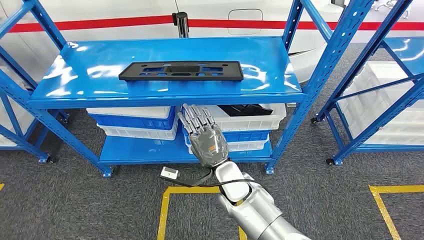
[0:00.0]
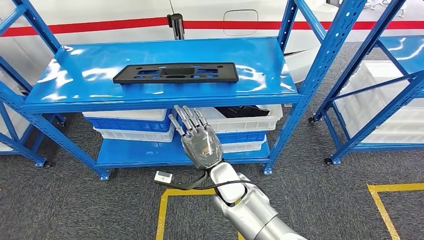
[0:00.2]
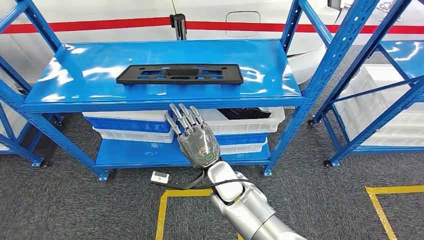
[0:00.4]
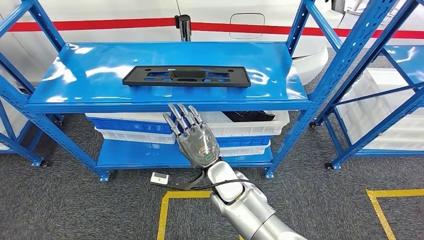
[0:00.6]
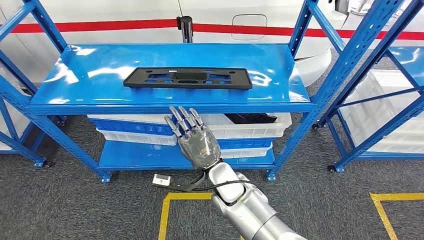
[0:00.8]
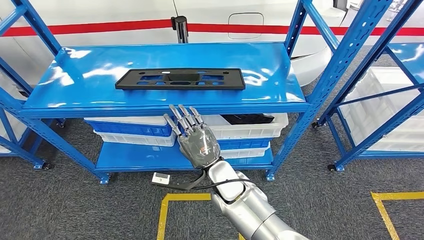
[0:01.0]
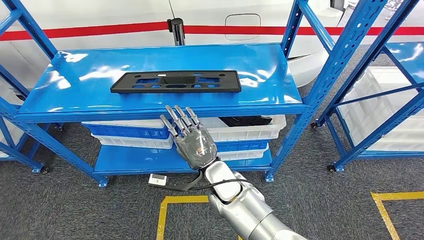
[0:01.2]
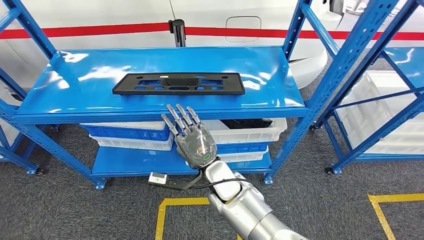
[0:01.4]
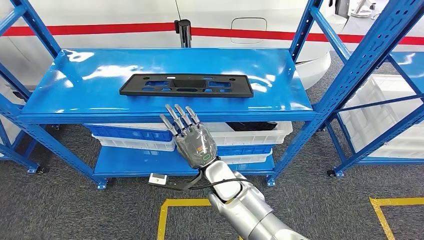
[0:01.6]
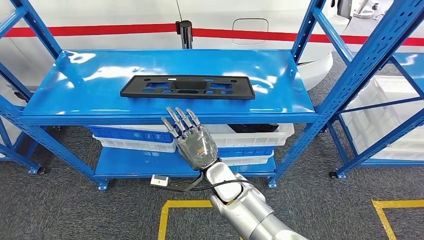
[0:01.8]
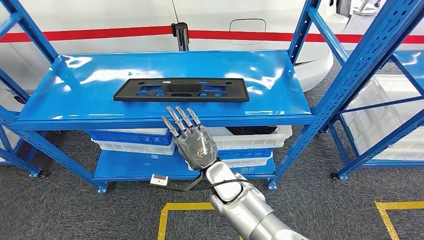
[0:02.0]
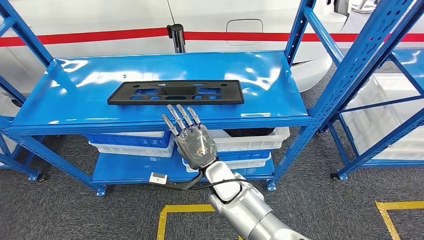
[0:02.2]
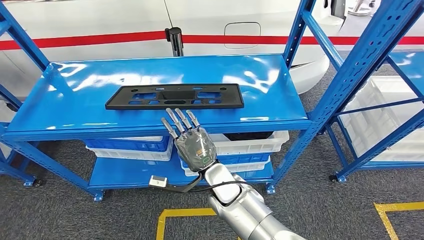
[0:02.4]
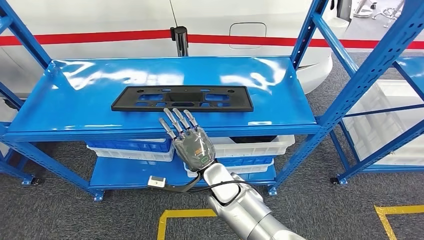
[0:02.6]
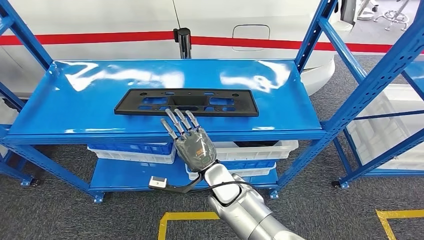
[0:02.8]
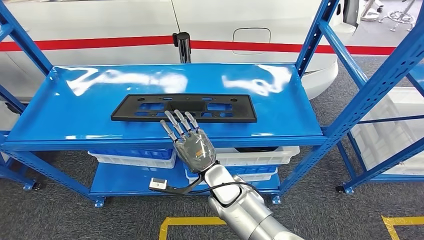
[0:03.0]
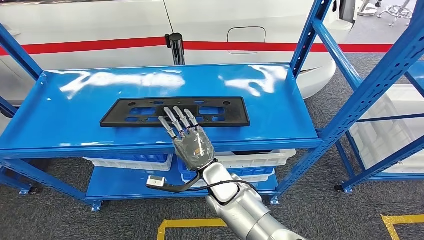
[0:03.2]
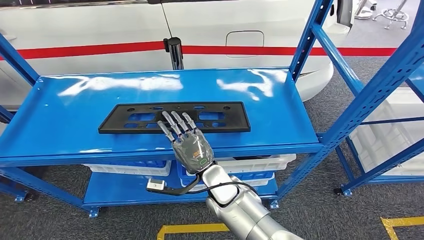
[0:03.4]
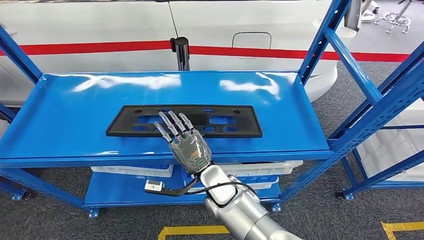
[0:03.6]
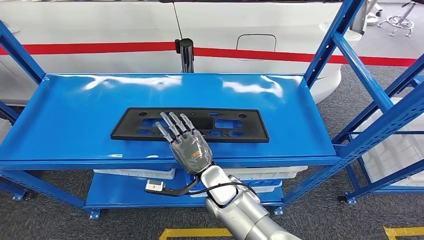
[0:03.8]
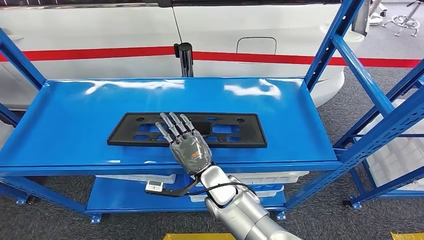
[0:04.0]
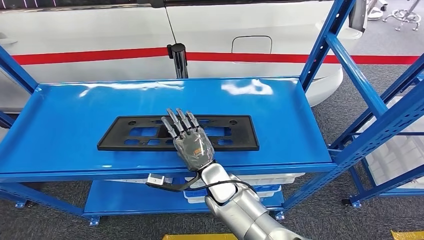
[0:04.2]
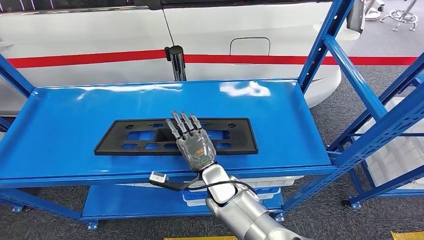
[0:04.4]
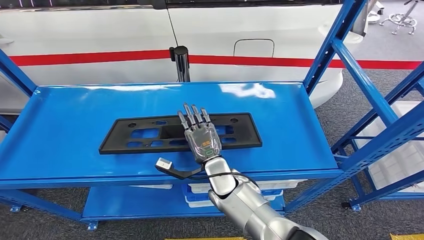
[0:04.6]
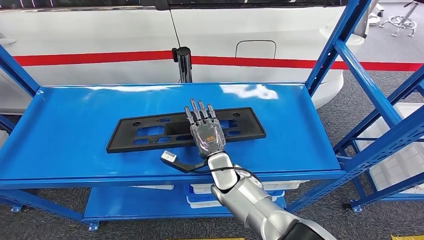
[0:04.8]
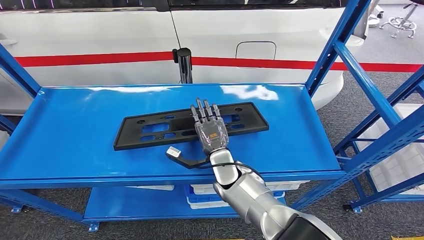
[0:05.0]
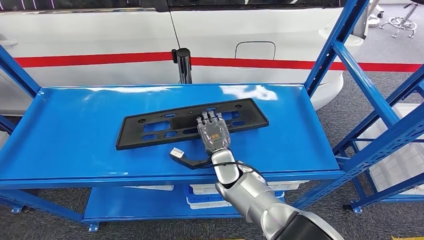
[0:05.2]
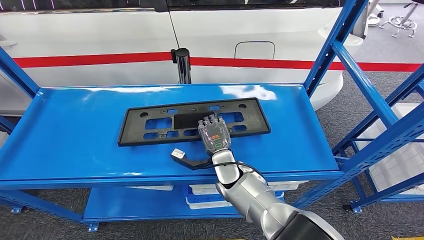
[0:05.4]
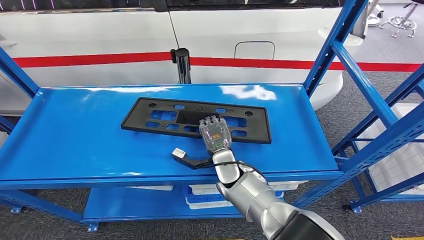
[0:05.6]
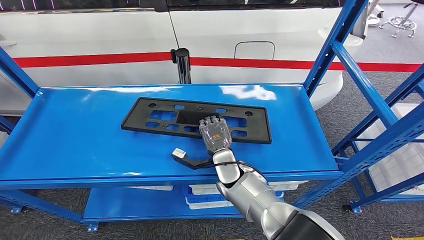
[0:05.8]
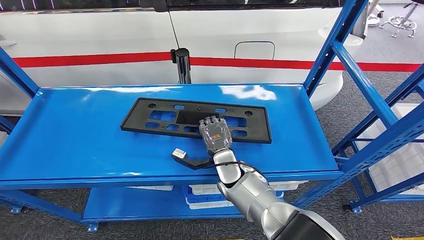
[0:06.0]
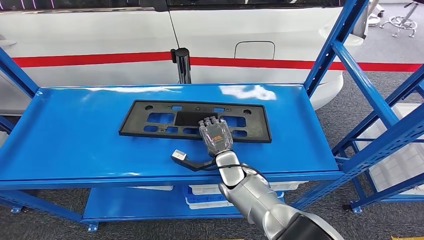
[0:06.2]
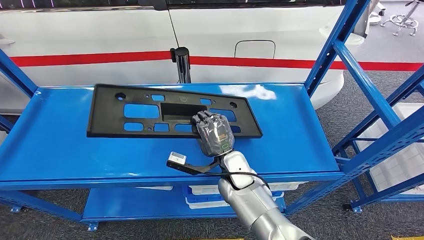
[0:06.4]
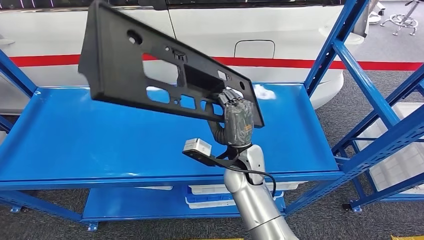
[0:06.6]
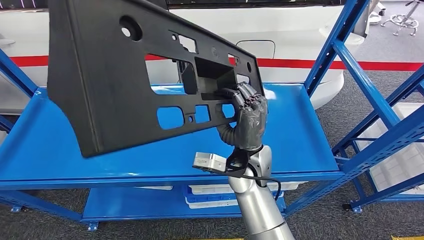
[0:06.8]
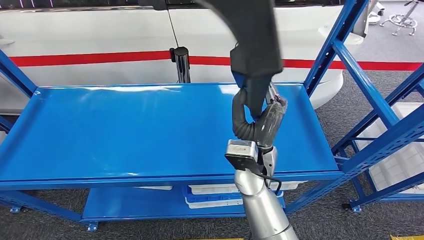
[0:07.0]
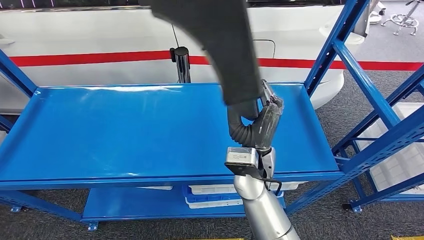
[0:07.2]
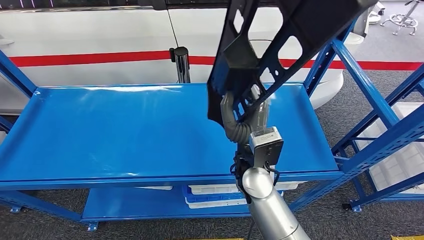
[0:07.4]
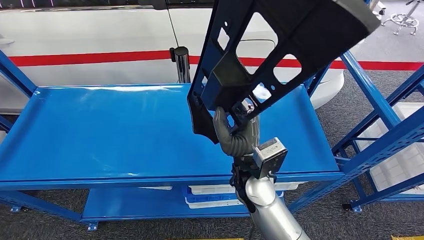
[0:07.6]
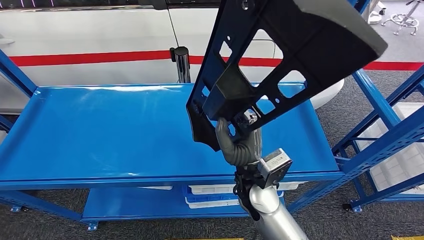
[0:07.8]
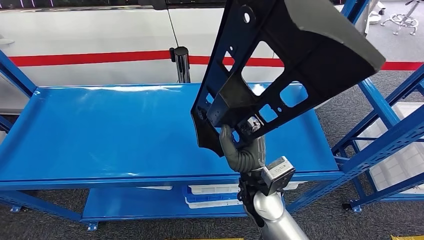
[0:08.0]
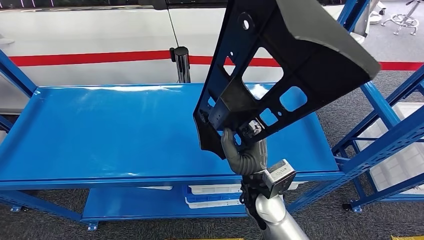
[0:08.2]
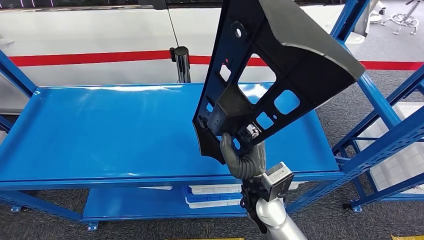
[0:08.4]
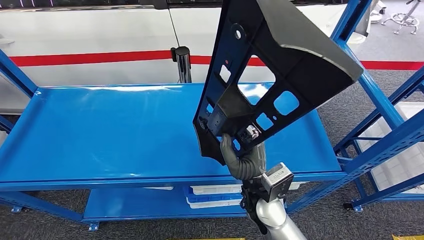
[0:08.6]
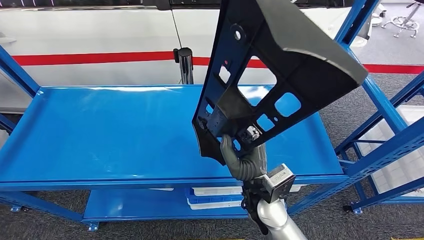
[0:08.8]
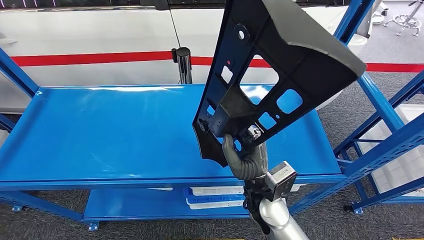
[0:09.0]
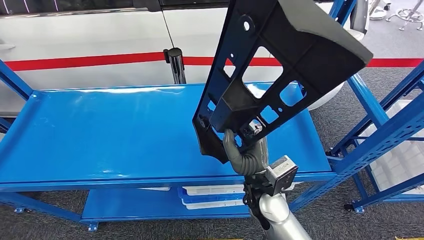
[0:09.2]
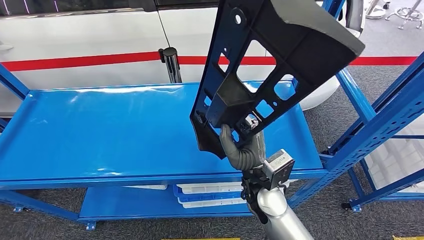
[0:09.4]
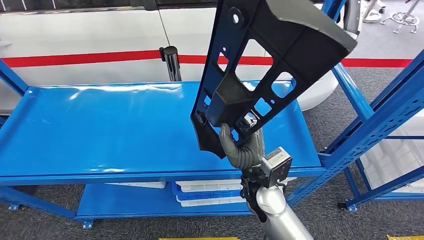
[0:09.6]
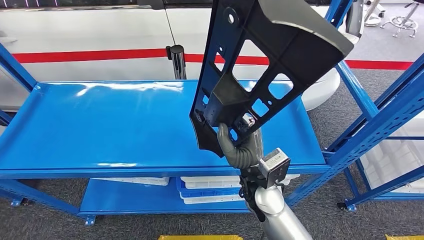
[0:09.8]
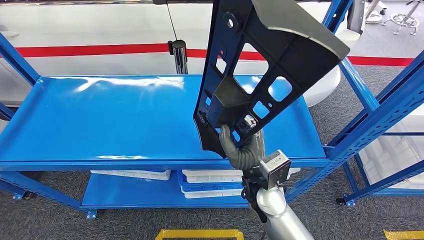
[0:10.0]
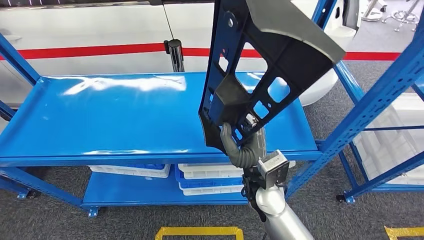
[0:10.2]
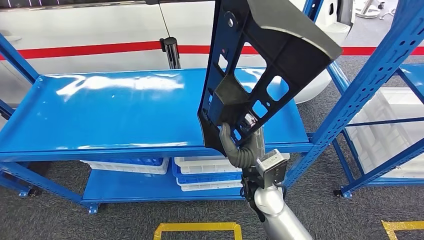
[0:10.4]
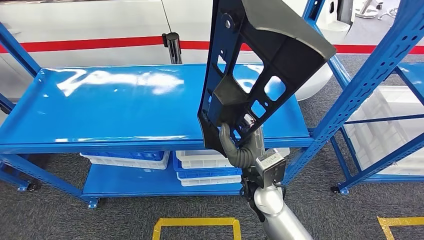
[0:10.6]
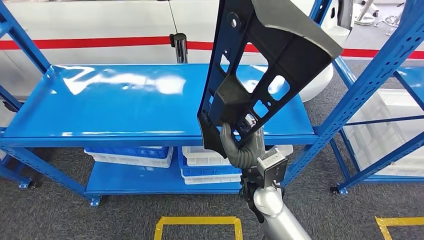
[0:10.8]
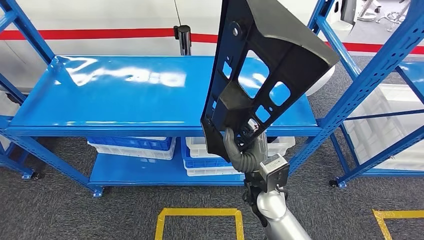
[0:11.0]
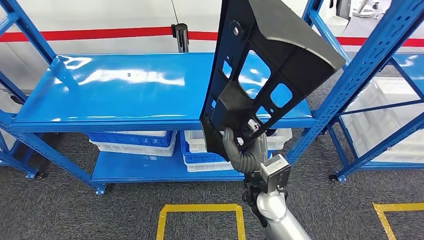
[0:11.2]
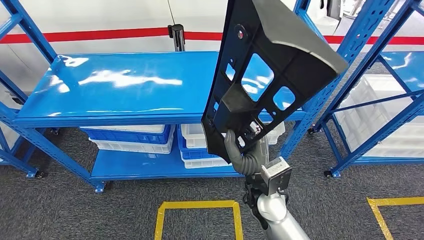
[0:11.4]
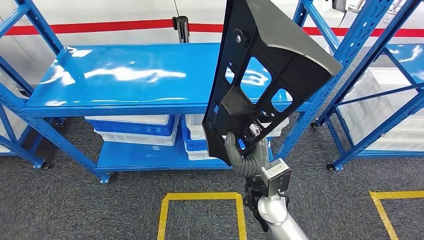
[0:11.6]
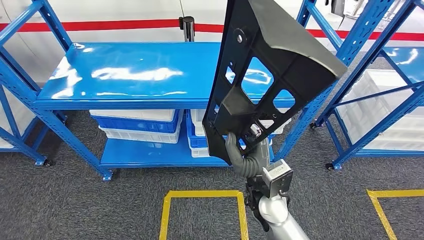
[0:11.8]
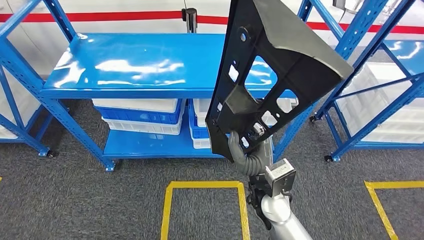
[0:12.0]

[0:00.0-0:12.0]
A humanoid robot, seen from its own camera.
Step, 0:00.0 to 0:11.4: Pick up the large material from the shelf.

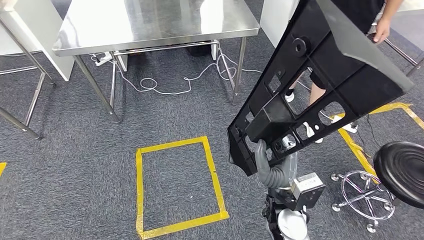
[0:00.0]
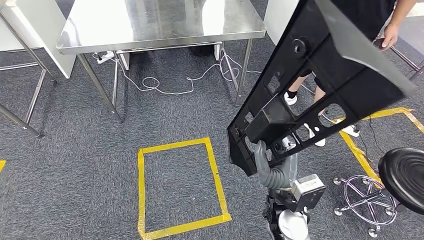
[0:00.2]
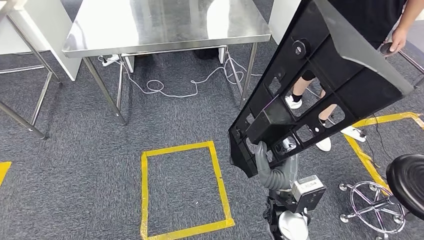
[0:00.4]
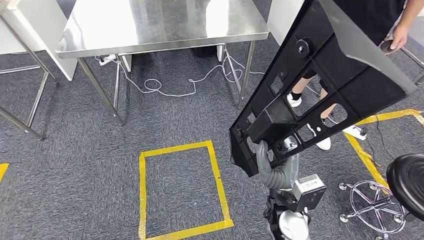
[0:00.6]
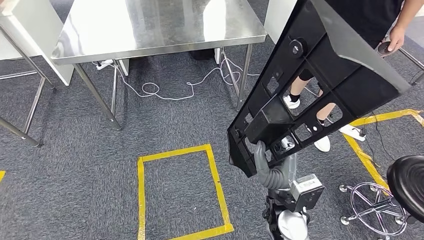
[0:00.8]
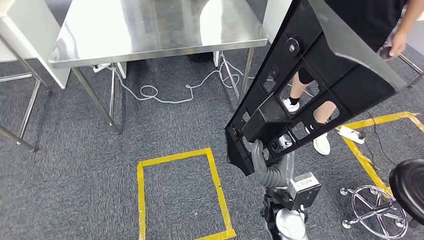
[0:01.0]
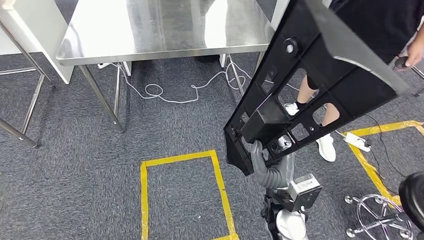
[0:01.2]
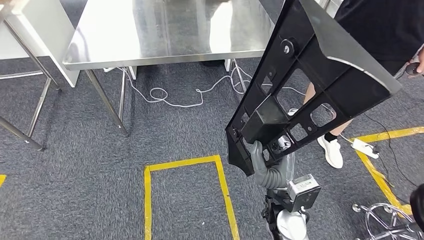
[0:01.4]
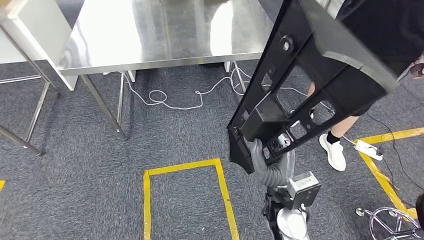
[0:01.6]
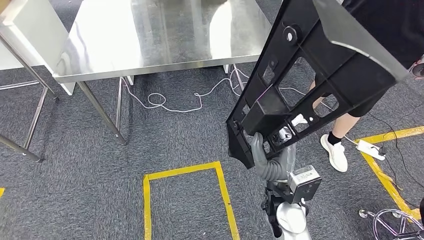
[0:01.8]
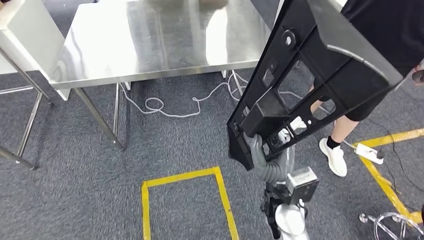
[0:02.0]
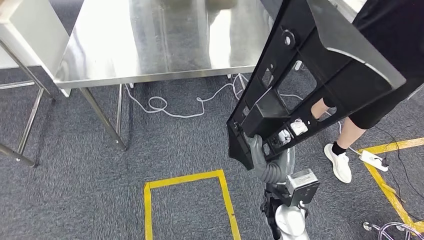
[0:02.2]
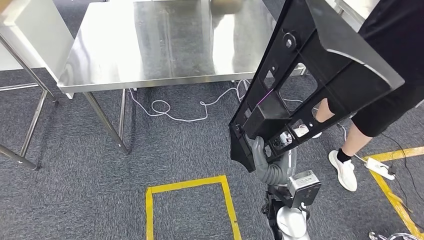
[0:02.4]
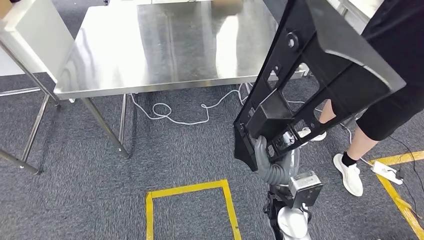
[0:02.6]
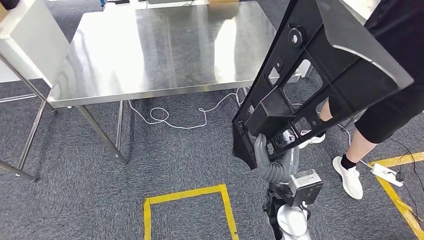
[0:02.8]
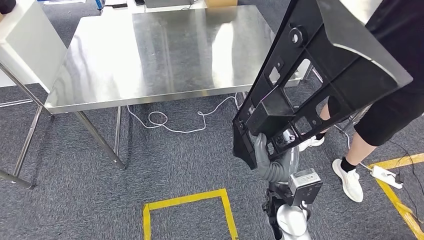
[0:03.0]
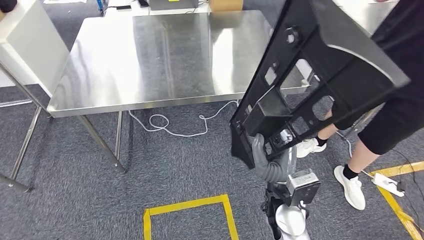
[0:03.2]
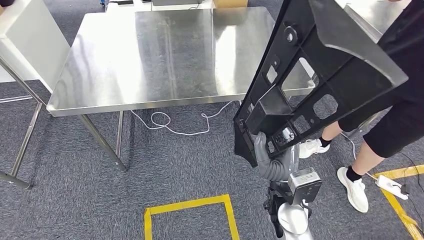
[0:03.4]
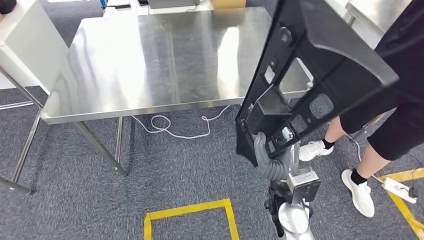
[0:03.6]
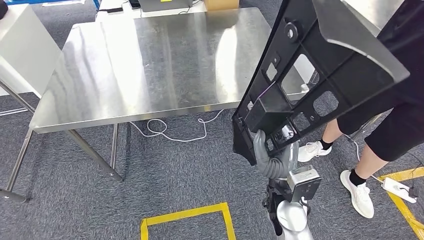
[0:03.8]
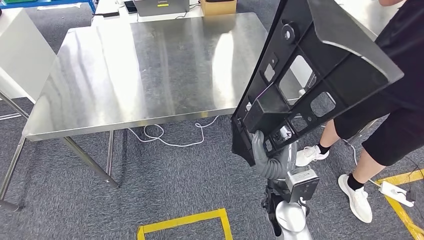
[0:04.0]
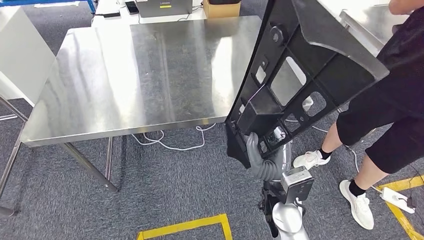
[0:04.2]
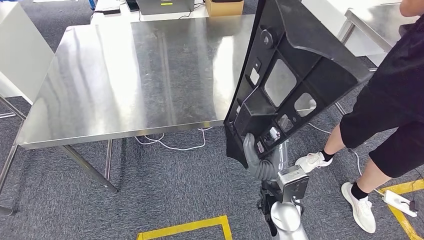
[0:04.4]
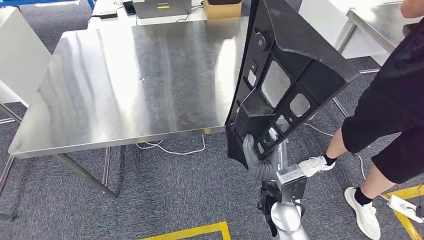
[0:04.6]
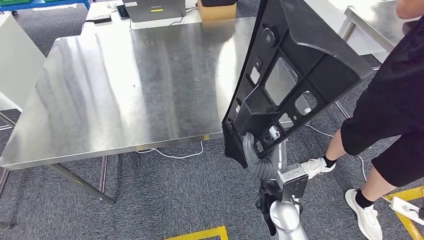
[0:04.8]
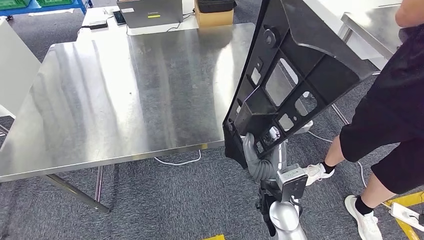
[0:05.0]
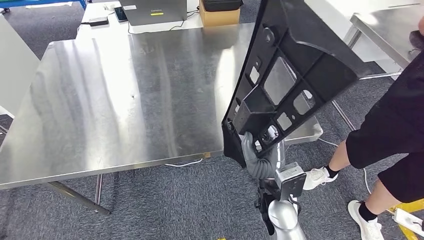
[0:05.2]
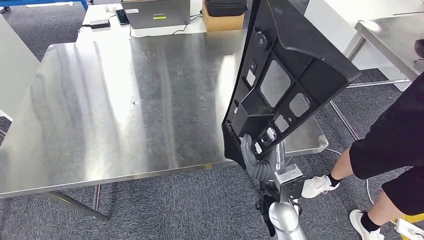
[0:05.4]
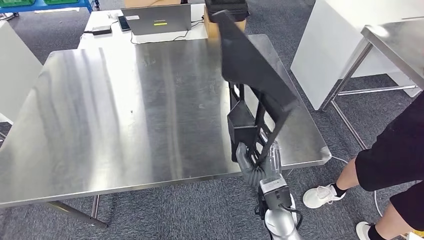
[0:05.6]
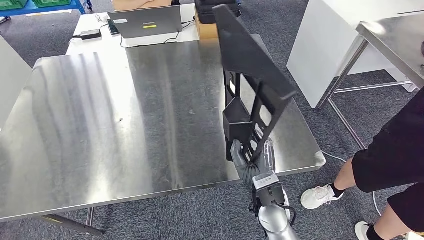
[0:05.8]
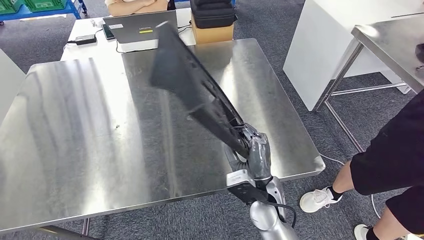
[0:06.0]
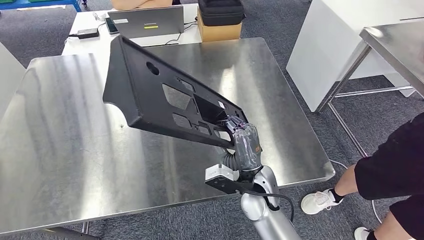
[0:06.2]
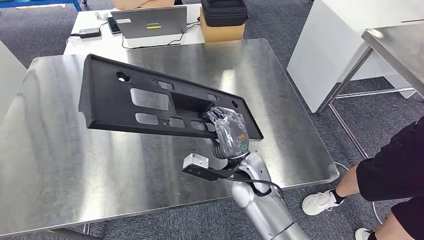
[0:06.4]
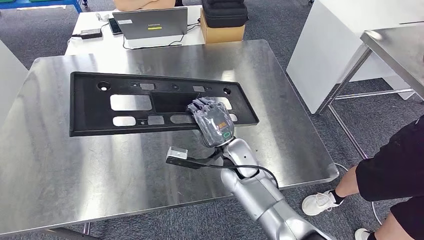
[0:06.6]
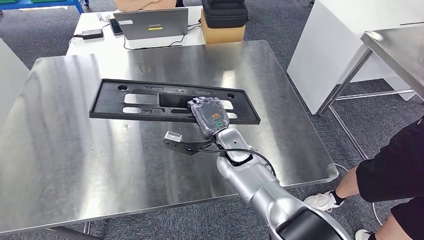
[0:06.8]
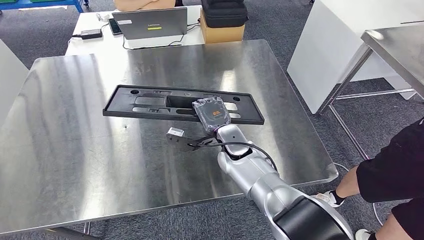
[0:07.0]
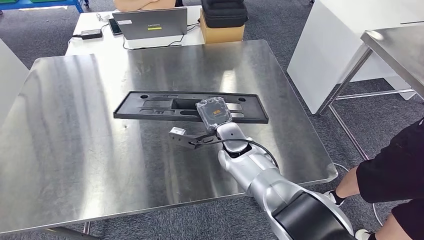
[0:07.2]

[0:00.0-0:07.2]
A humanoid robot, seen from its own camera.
Step, 0:00.0 to 0:03.6: Move the large material to the workbench.
